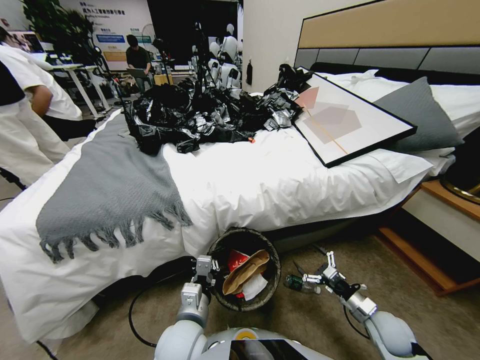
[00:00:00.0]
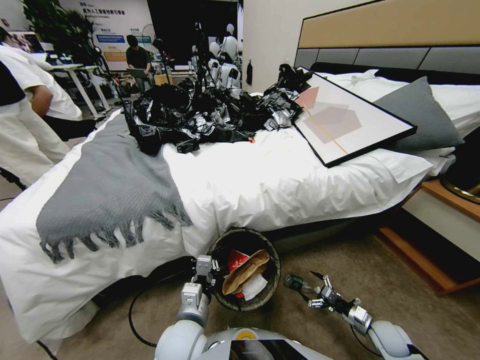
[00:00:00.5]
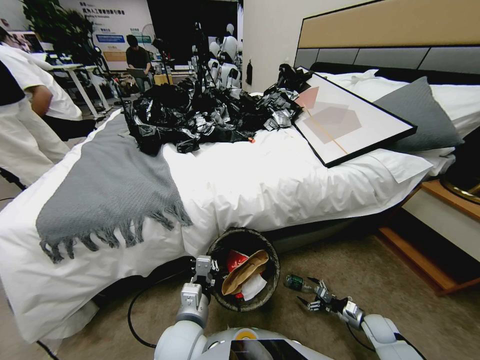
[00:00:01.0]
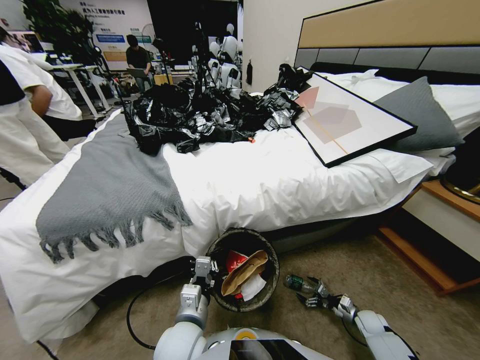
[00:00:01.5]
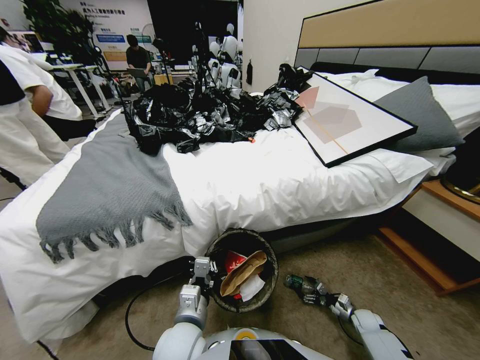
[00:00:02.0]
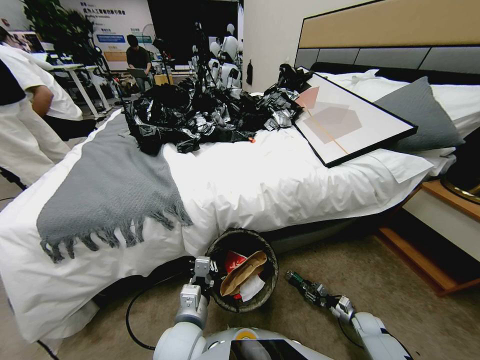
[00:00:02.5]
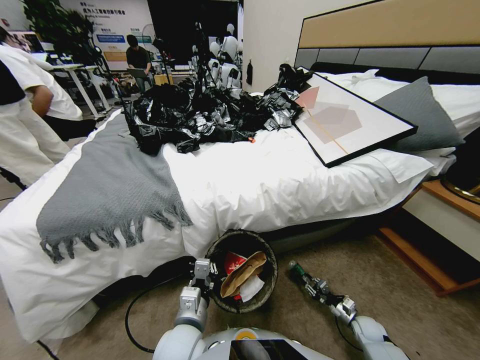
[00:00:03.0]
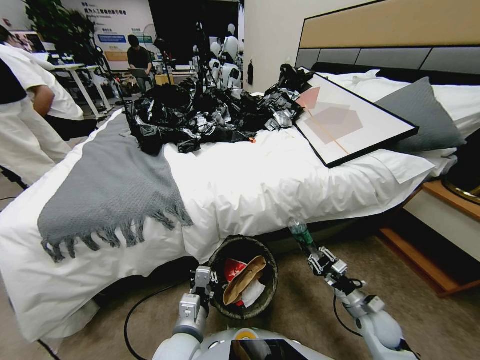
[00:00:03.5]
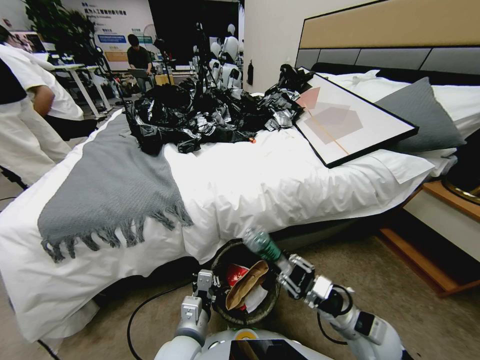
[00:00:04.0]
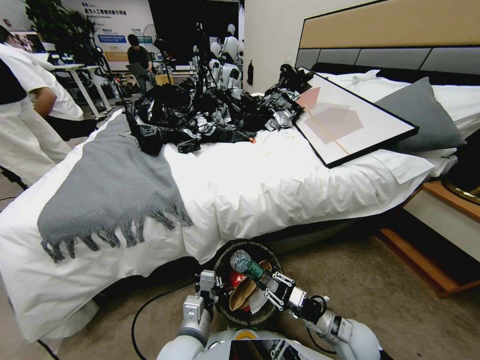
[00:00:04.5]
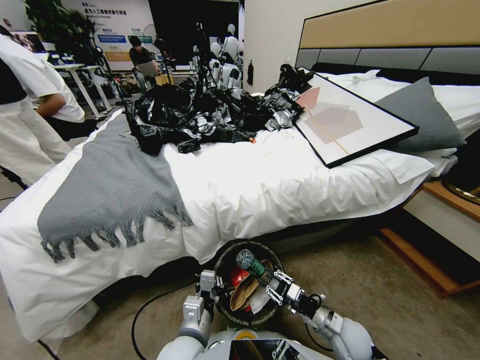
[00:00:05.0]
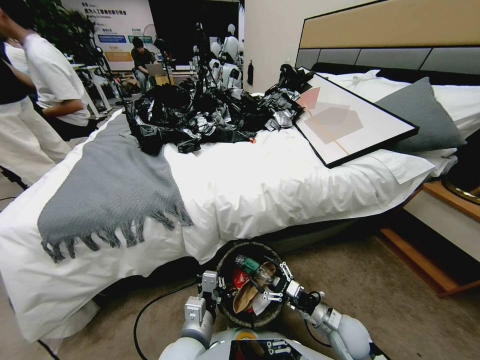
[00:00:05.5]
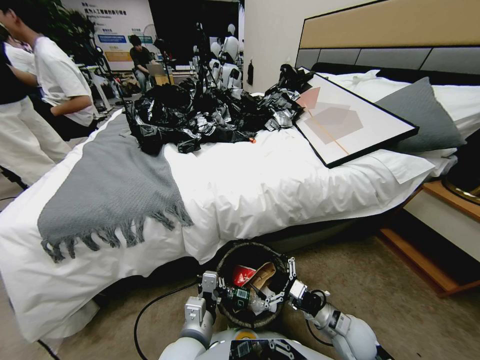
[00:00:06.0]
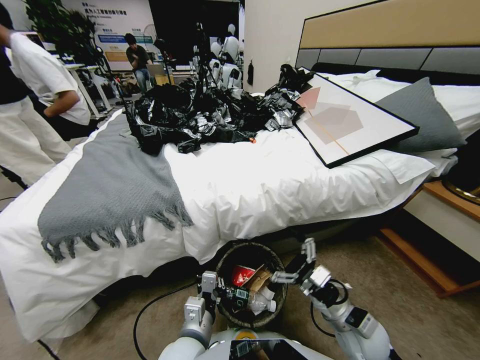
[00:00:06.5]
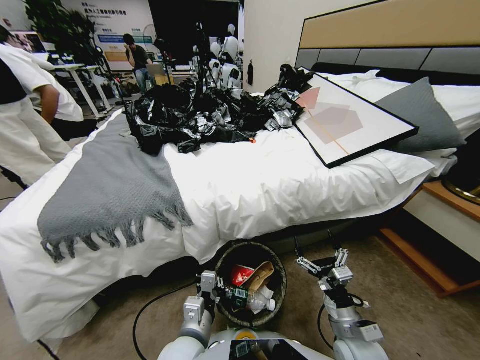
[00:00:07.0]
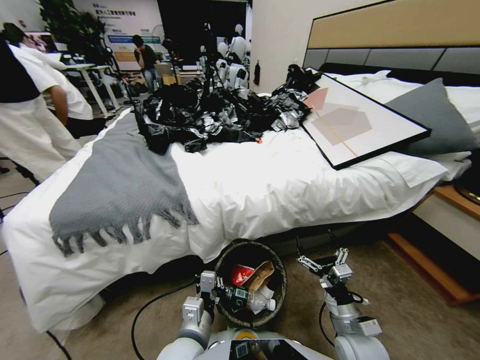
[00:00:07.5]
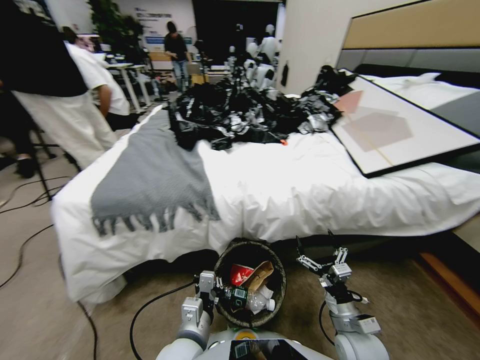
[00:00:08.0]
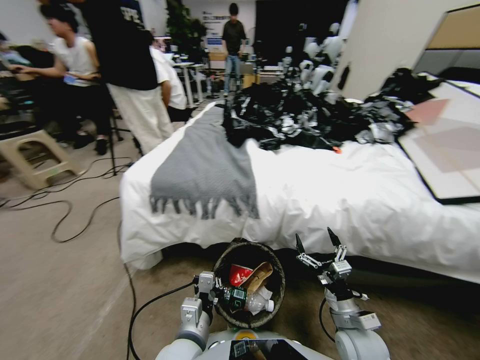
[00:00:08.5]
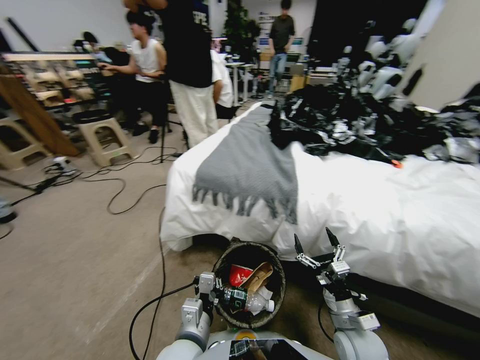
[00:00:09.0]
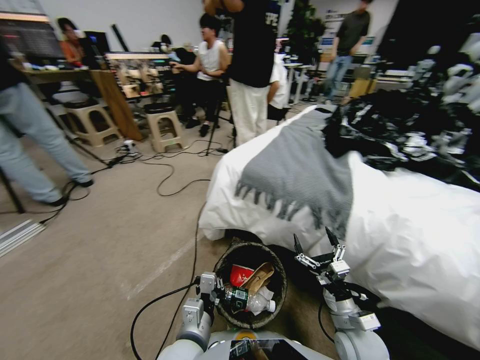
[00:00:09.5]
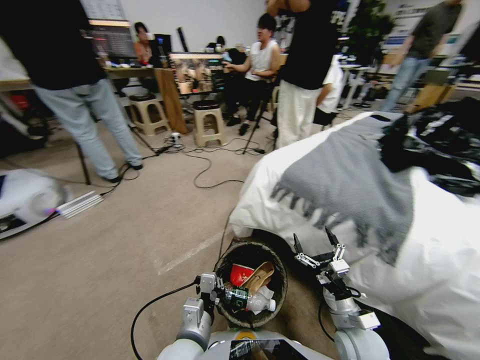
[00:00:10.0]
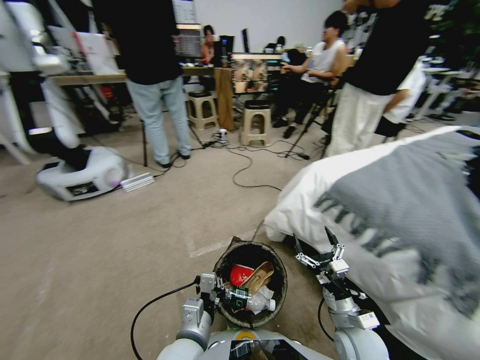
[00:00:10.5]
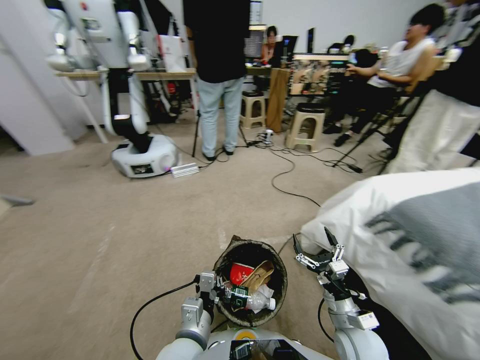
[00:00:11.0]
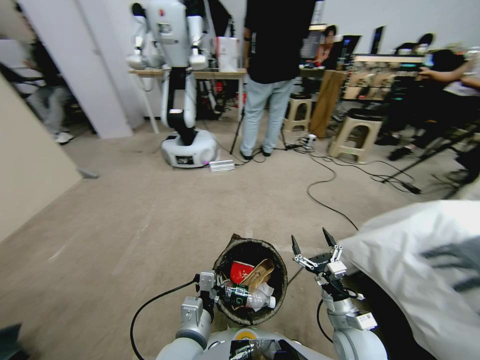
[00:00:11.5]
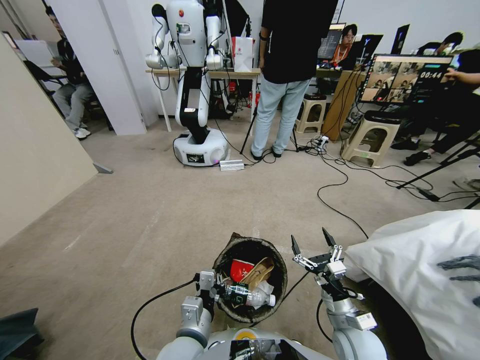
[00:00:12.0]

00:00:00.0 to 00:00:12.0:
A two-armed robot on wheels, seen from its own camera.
Task of the whole recording: Pick up the trash bin, then pick up the garbage from the floor and place it into the trash bin.
00:00:00.0 to 00:00:02.0: The right gripper heads downward, covering approximately 15 cm.
00:00:02.0 to 00:00:04.0: The right gripper heads upward and to the left, covering approximately 35 cm, and closes.
00:00:04.0 to 00:00:06.0: The right gripper travels downward and back again, roughly 10 cm each way, and opens.

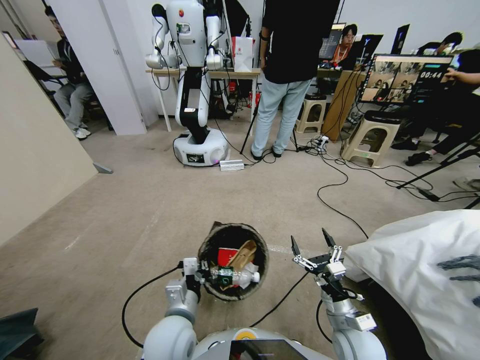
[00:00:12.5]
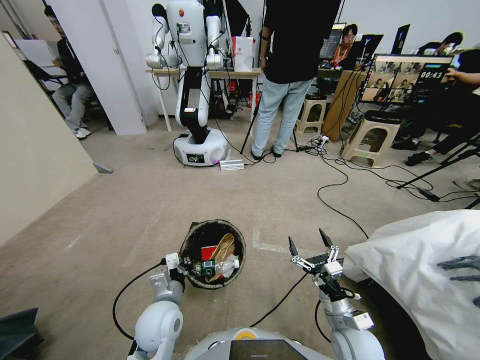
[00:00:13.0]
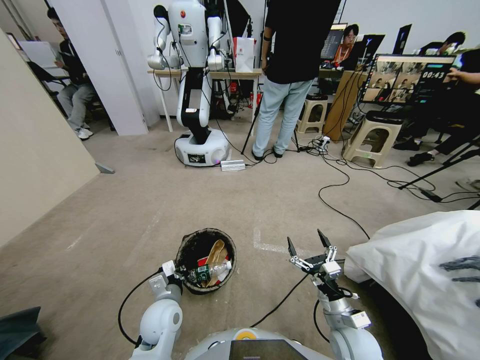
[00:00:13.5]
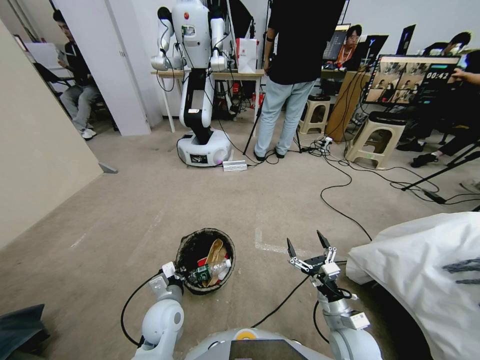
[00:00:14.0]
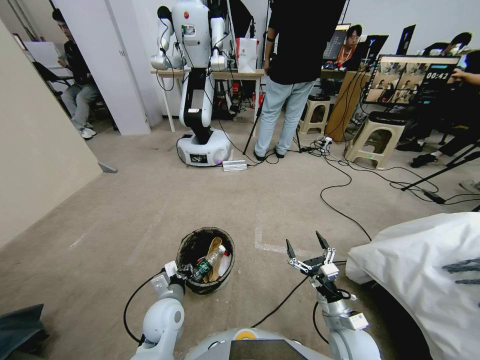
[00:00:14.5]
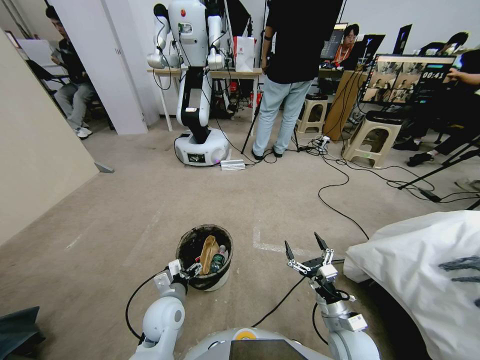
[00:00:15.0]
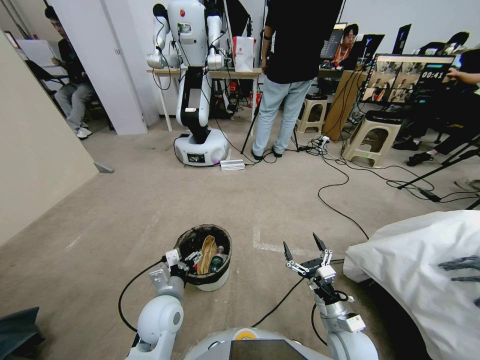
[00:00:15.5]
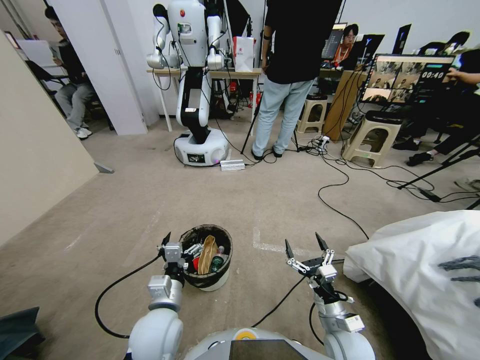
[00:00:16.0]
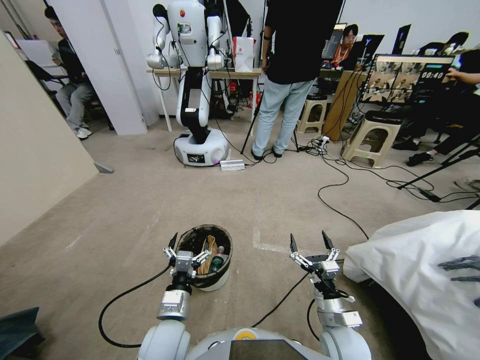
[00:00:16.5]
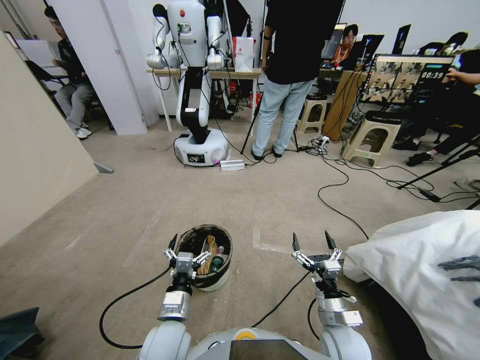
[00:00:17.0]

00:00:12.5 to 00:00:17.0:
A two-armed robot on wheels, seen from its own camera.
Task of the whole recording: Pick up the trash bin, then pick up the garbage from the floor and place it into the trash bin.
00:00:12.5 to 00:00:14.5: The left gripper moves downward, approximately 5 cm, and opens up.
00:00:14.5 to 00:00:17.0: The left gripper heads backward, covering roughly 5 cm, and opens up.
